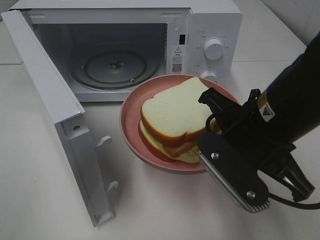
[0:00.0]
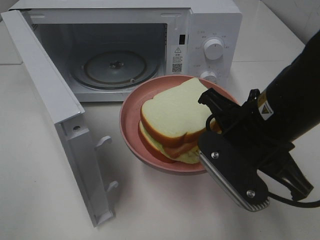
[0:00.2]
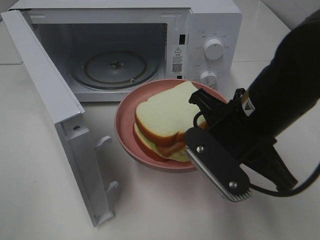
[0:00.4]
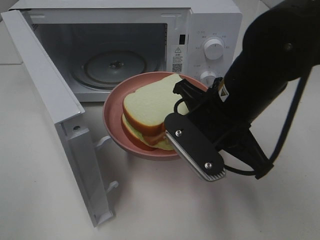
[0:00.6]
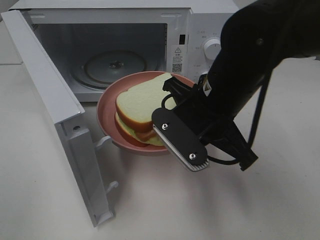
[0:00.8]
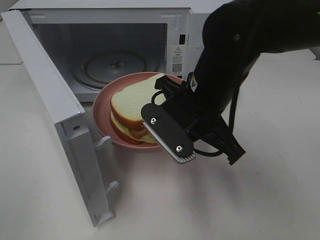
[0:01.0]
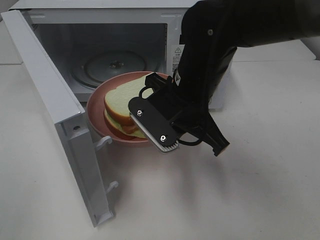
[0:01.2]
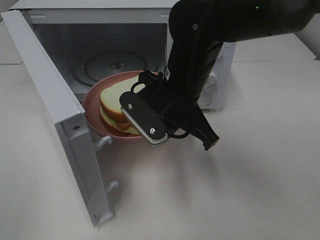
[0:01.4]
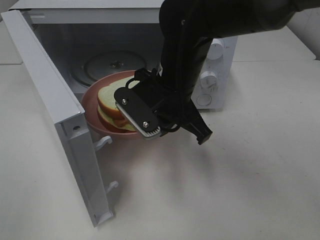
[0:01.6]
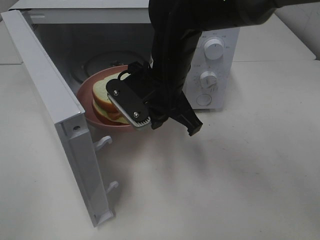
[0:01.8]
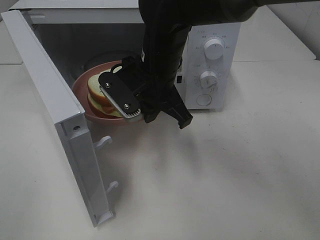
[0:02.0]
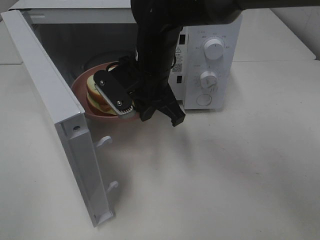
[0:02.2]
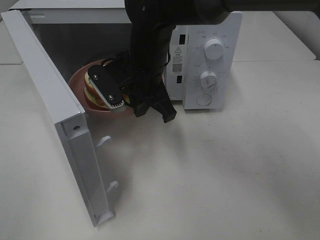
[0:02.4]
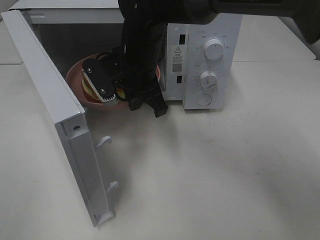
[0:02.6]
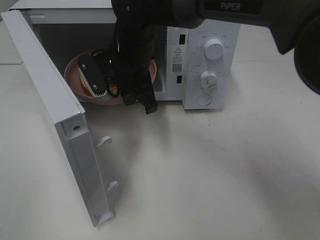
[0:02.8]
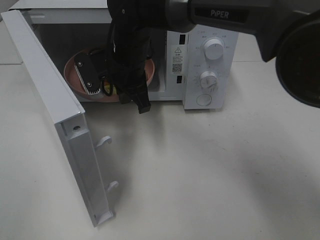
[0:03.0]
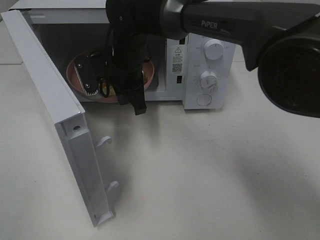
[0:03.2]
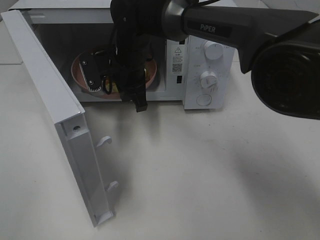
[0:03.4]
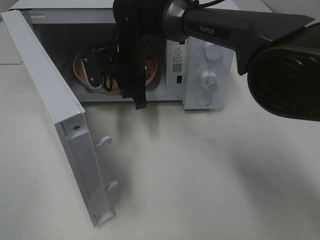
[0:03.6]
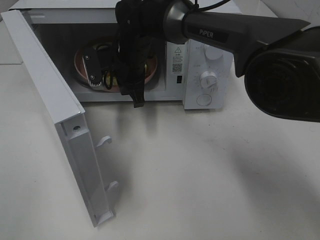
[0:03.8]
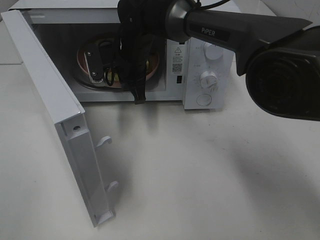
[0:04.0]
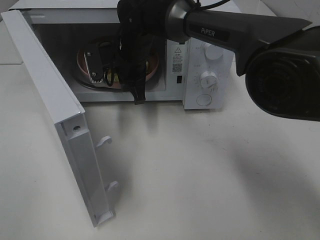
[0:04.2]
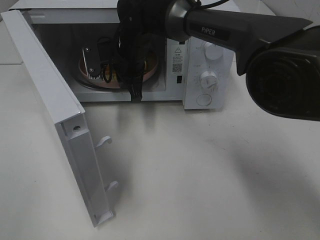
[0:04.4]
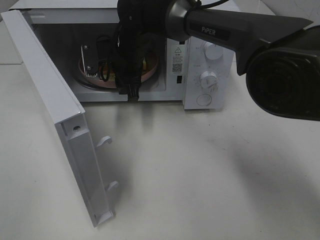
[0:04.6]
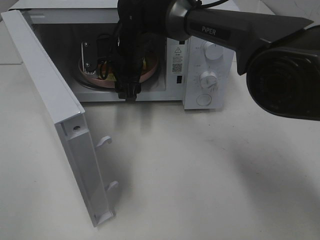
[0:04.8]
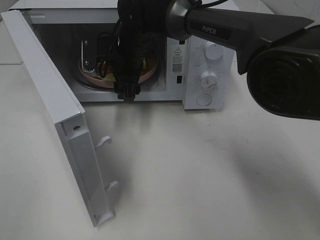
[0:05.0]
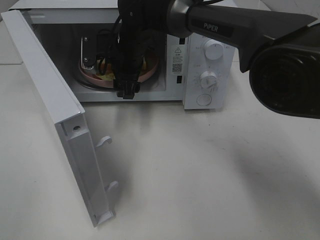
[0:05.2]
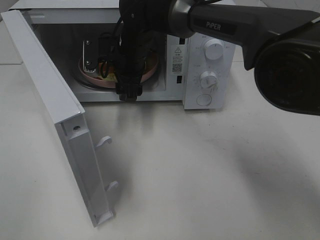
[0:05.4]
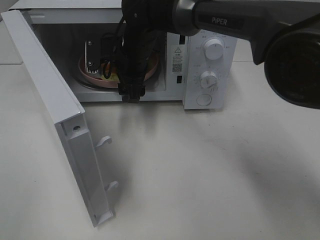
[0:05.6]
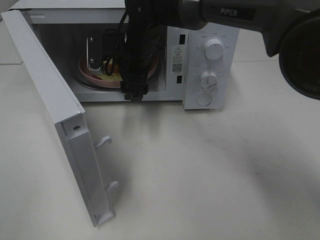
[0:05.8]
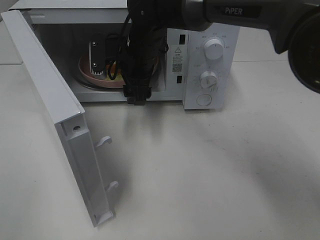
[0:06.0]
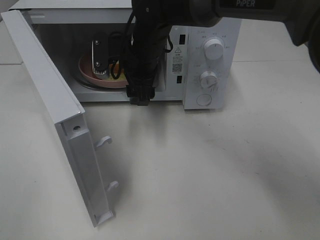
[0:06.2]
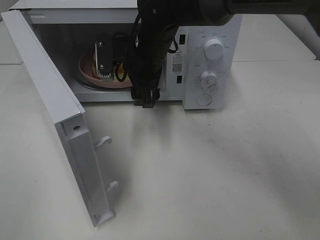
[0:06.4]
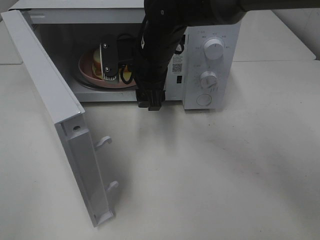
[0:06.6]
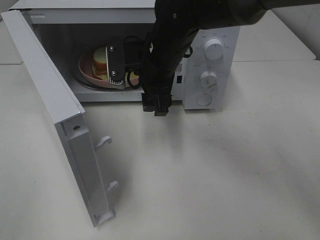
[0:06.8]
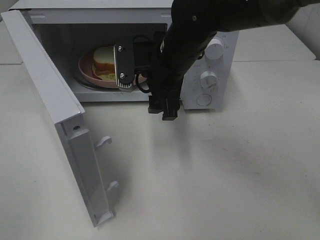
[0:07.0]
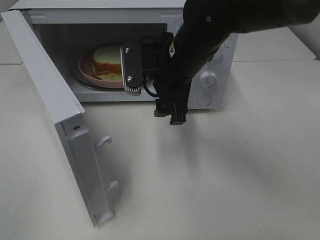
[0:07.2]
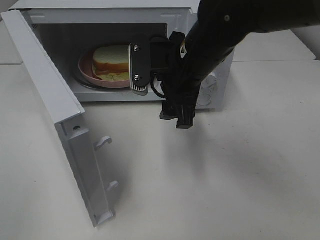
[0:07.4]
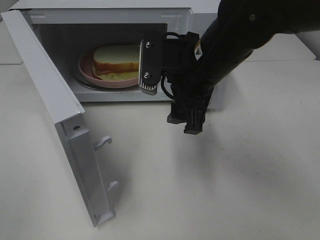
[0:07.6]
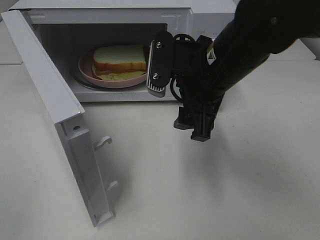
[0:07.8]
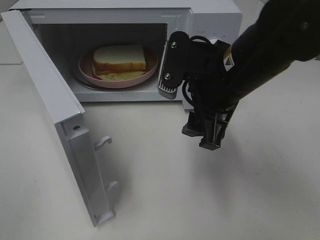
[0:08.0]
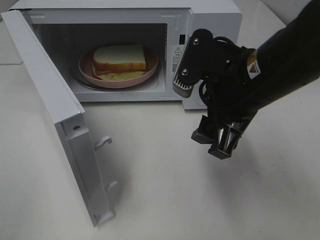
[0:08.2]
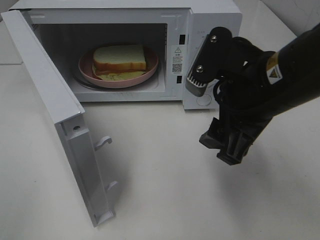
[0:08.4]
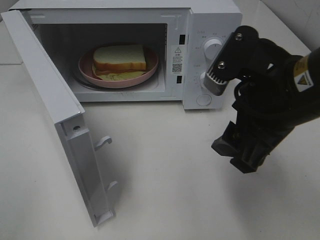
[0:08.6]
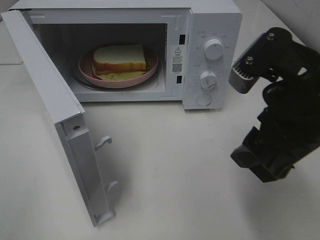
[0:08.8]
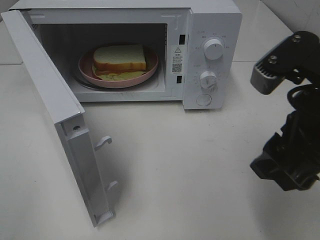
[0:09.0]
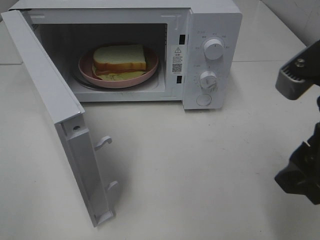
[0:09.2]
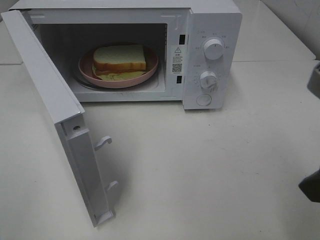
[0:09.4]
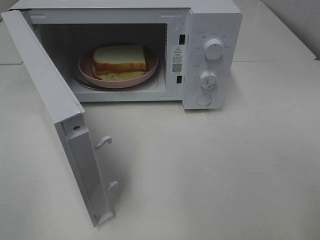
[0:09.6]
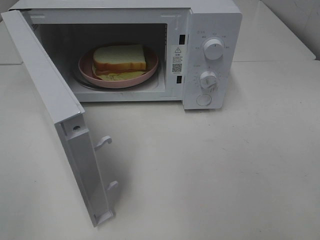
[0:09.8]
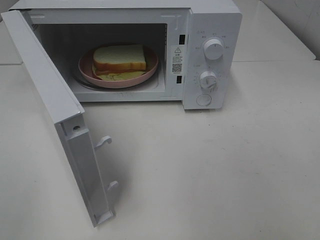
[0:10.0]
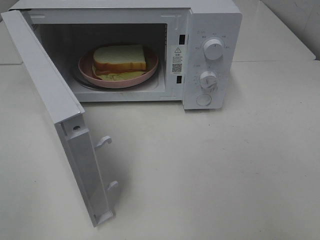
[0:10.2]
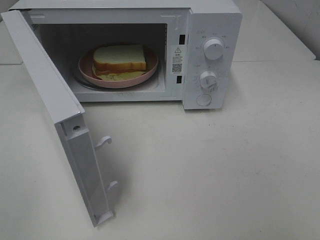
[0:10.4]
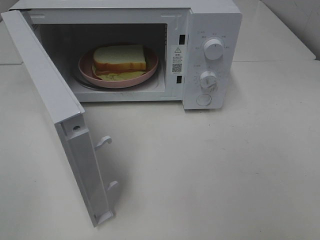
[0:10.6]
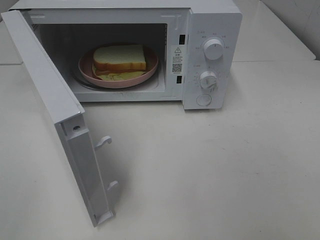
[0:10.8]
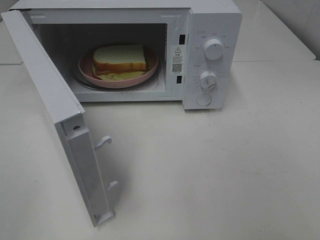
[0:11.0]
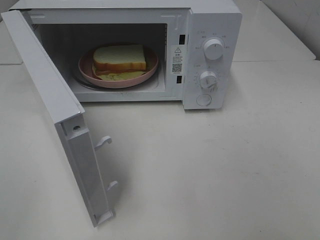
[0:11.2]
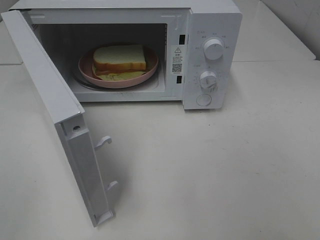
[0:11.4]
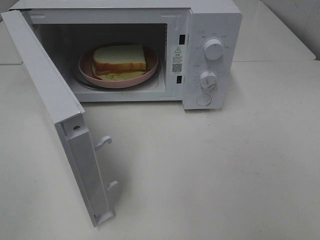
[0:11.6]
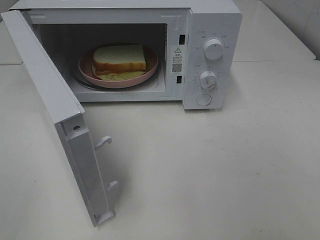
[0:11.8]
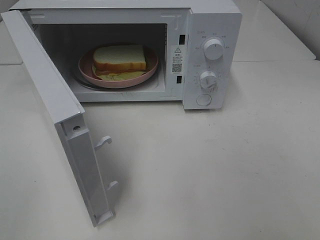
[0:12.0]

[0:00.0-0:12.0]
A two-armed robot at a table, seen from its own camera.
Task of the whole recording: Heat Sandwich.
Step, 0:00.0 to 0:05.6: Right hand: place the plate in the microwave.
0:00.0 to 0:01.6: The right gripper shifts roughly 15 cm forward and to the left.
0:01.6 to 0:03.0: The right gripper travels forward and to the left by roughly 10 cm.
0:03.0 to 0:04.4: The right gripper heads forward, covering roughly 5 cm.
0:04.4 to 0:06.0: The right gripper opens its fingers.
0:06.0 to 0:07.6: The right gripper shifts roughly 15 cm backward and to the right.
0:07.6 to 0:09.0: The right gripper travels backward and to the right by about 15 cm.
0:09.0 to 0:10.4: The right gripper travels backward and to the right by approximately 20 cm.

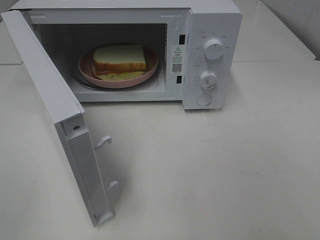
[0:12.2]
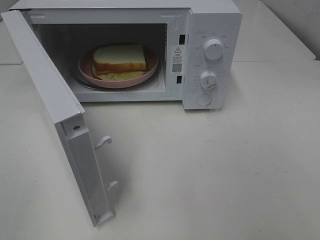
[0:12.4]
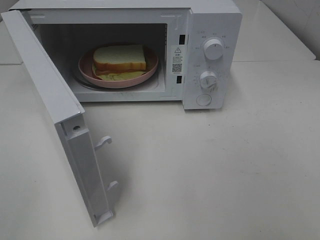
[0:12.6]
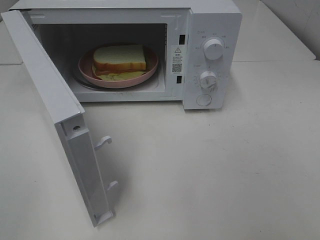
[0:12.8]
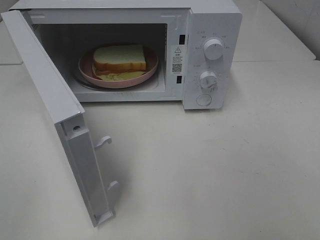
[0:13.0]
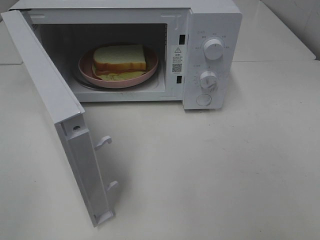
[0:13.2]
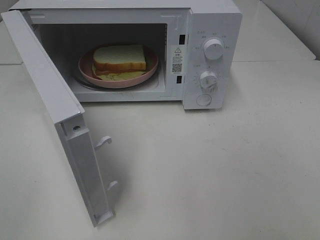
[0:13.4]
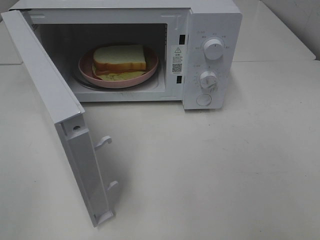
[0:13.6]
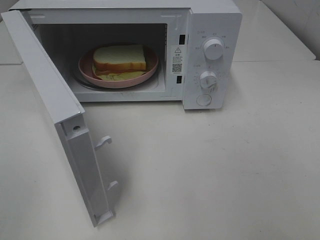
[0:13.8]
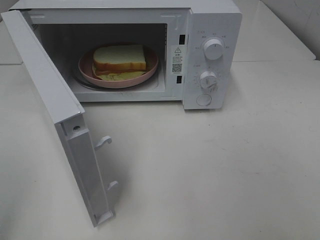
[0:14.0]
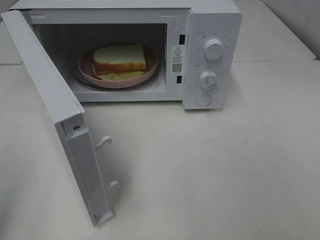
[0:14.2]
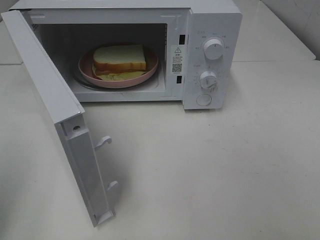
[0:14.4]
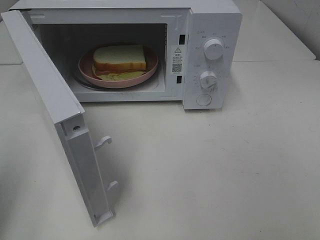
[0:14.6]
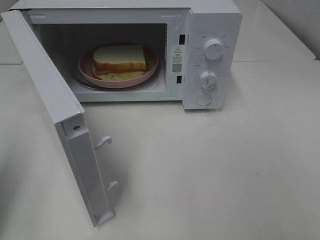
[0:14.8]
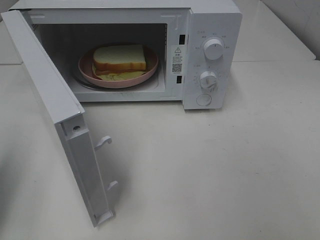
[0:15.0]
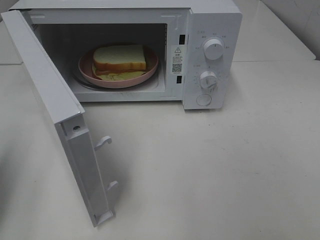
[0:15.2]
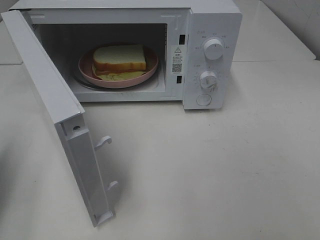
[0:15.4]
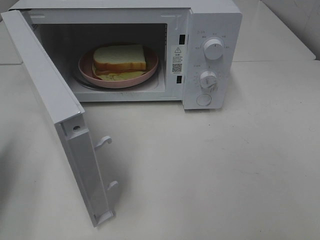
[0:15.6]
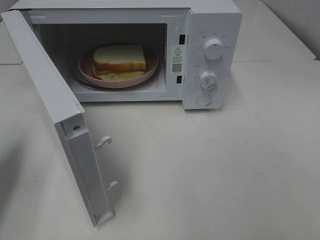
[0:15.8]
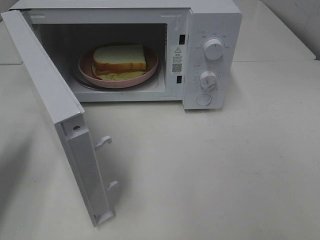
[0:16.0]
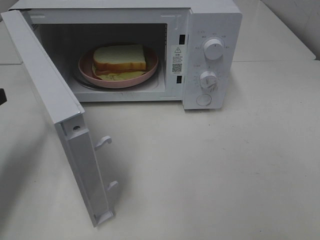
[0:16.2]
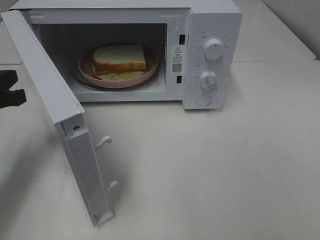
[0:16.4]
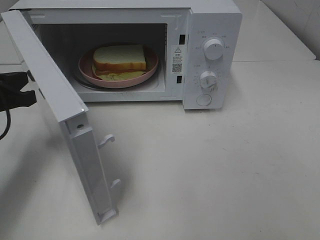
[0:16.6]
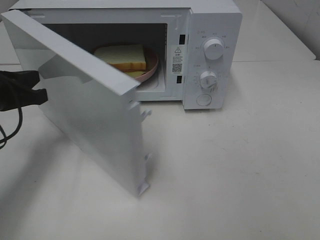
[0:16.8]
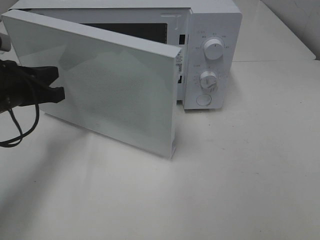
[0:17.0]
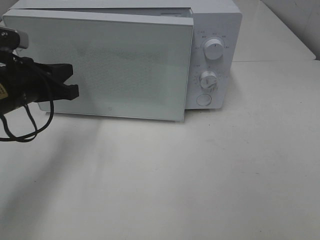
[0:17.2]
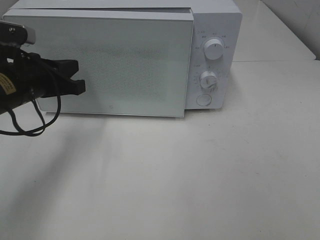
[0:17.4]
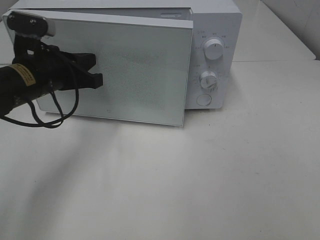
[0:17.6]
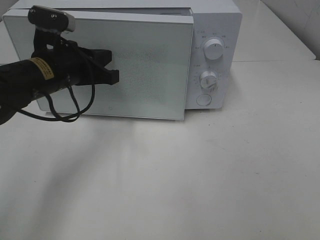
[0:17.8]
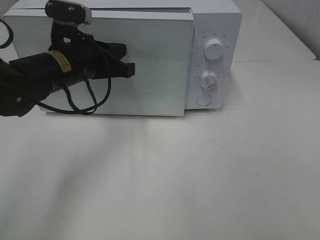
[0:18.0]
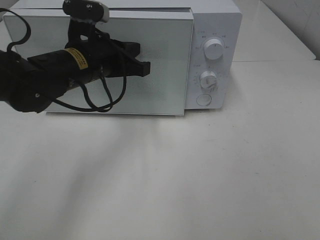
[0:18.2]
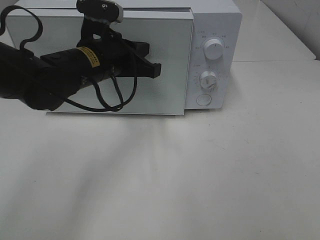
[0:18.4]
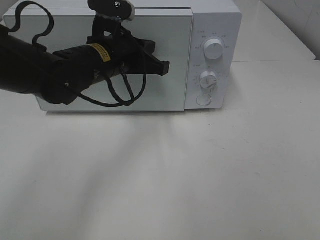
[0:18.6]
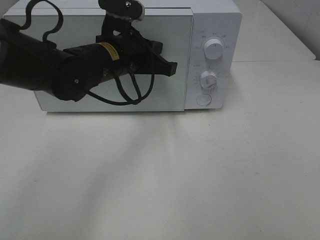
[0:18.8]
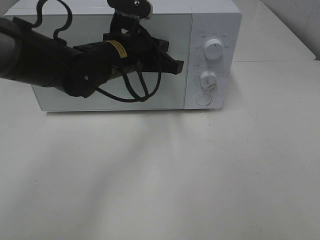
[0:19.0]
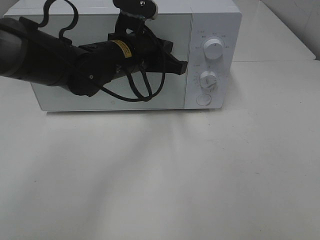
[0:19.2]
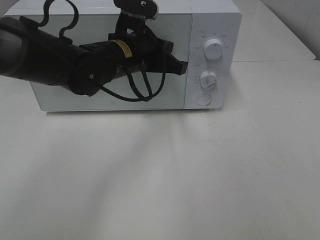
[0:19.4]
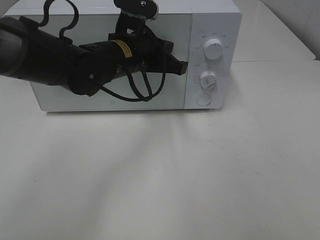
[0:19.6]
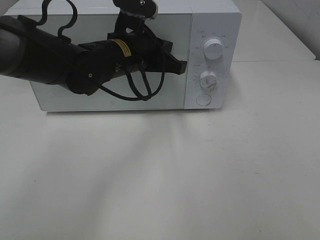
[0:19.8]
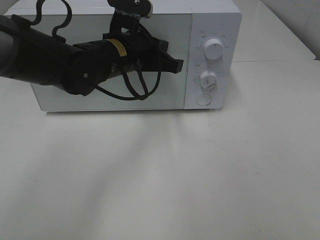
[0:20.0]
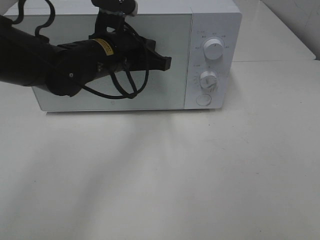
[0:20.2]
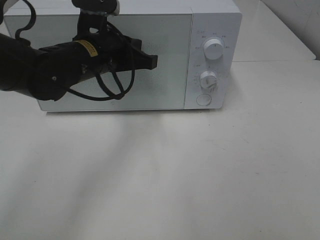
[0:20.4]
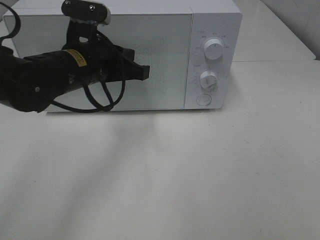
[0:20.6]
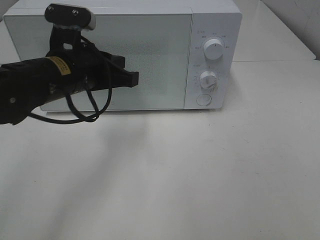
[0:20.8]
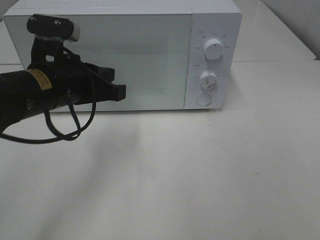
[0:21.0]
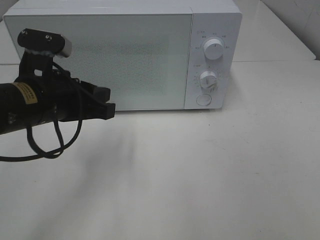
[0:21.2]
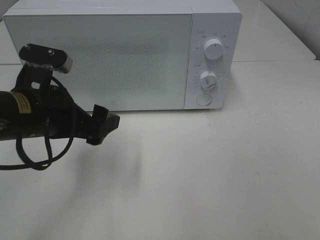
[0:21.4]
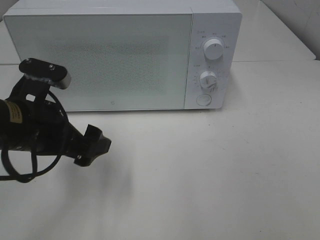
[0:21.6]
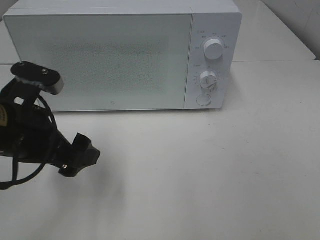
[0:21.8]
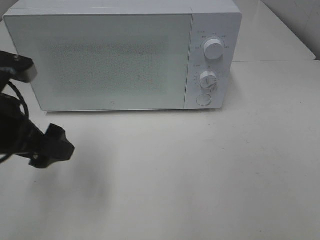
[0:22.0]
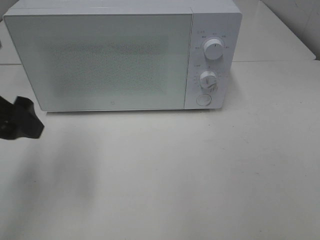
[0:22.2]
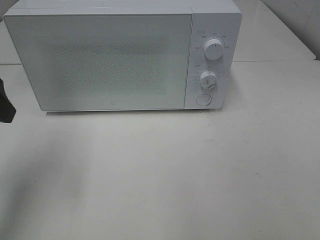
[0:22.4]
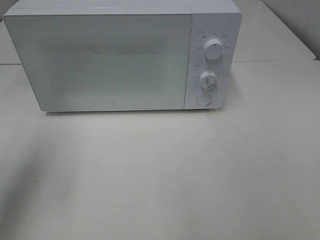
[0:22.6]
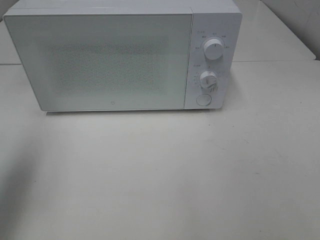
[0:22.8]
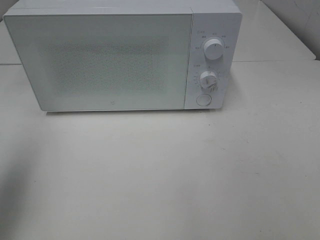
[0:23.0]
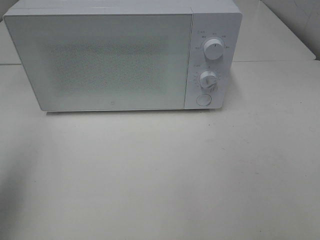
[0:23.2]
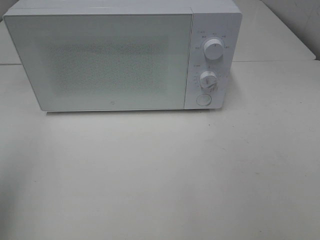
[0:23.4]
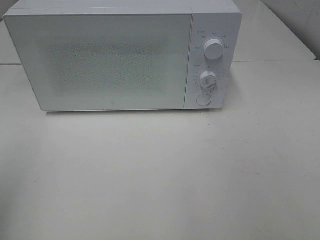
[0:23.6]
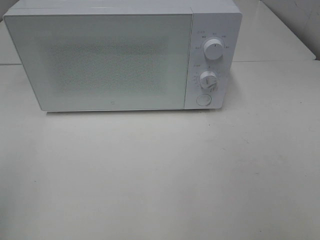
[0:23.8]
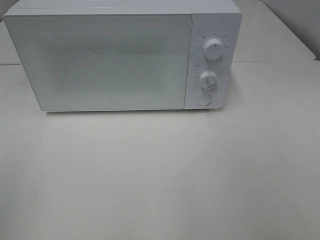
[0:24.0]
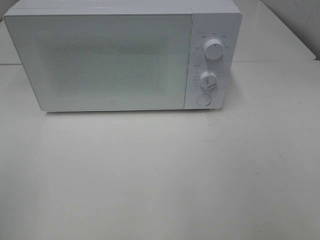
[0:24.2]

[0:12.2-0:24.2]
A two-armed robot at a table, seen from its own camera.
Task of the whole recording: Heat Sandwich.
Step, 0:12.2 to 0:20.8: Left hand: close the microwave door.
0:13.8 to 0:15.2: The left gripper is displaced forward and downward by some 15 cm, and closes up.
0:15.2 to 0:16.6: The left gripper is displaced forward, downward and to the right by about 15 cm.
0:16.6 to 0:18.2: The left gripper moves to the right, some 15 cm.
0:18.2 to 0:19.8: The left gripper moves to the right, roughly 5 cm.
0:19.8 to 0:21.2: The left gripper shifts roughly 15 cm backward and to the left.
0:21.2 to 0:22.6: The left gripper travels to the left and upward by approximately 15 cm, and opens up.
0:22.6 to 0:24.2: The left gripper moves backward, about 15 cm.
